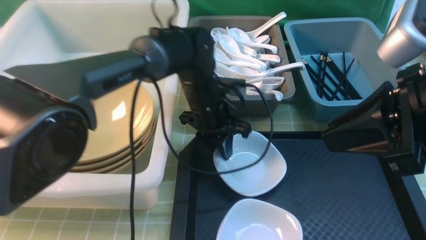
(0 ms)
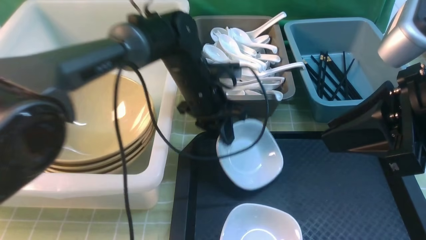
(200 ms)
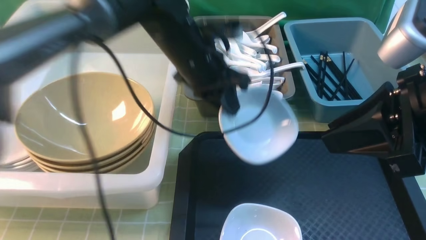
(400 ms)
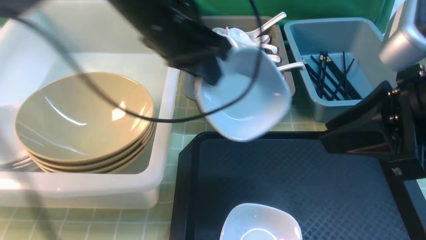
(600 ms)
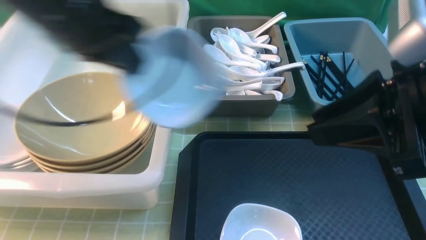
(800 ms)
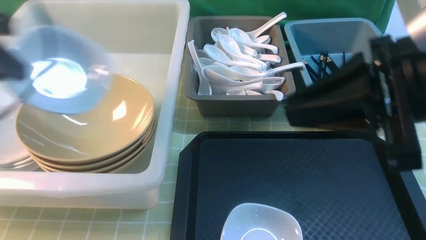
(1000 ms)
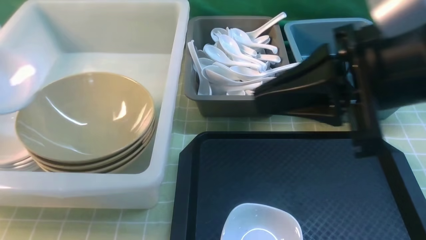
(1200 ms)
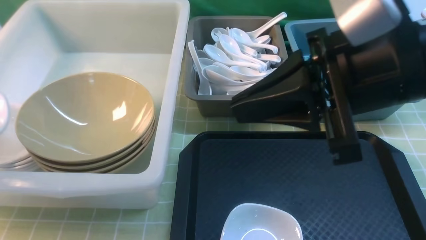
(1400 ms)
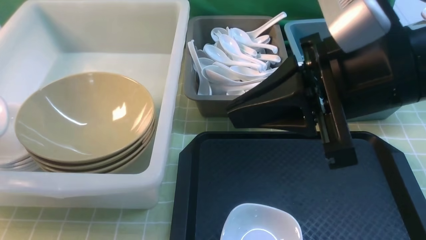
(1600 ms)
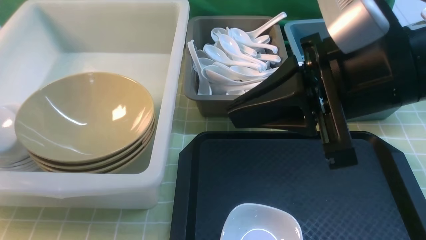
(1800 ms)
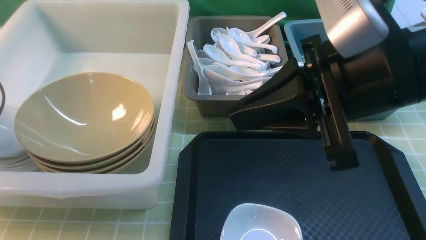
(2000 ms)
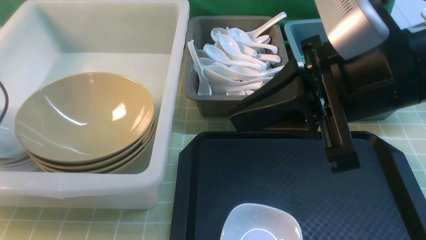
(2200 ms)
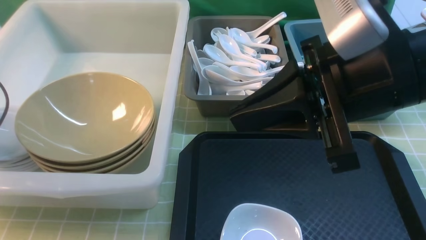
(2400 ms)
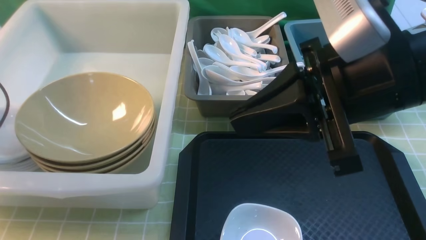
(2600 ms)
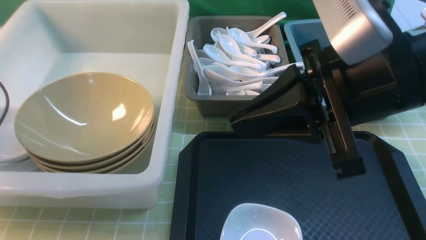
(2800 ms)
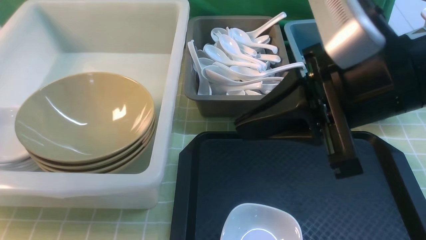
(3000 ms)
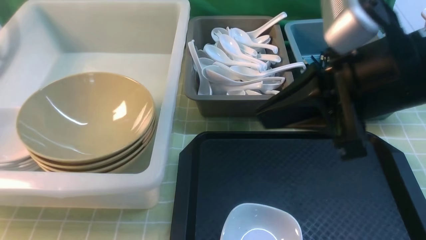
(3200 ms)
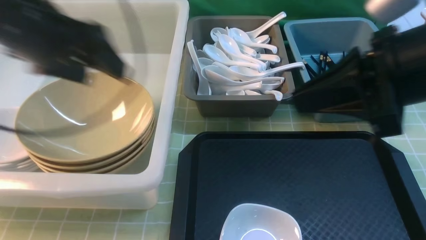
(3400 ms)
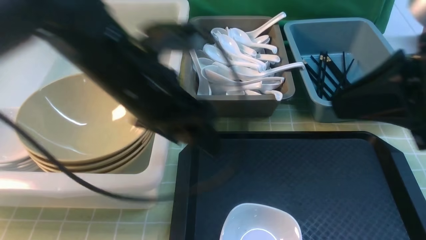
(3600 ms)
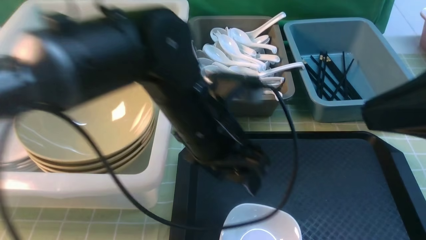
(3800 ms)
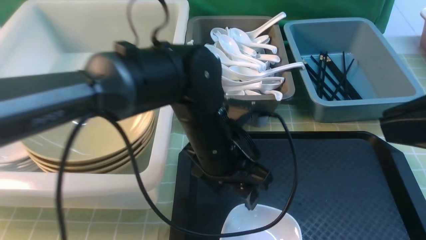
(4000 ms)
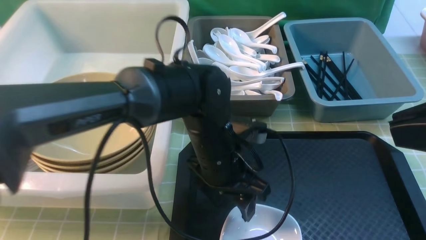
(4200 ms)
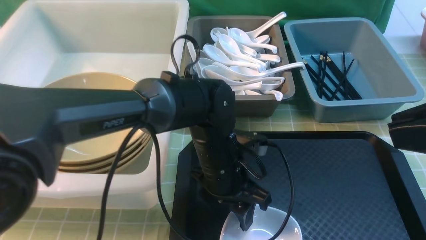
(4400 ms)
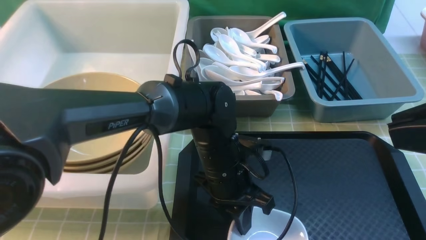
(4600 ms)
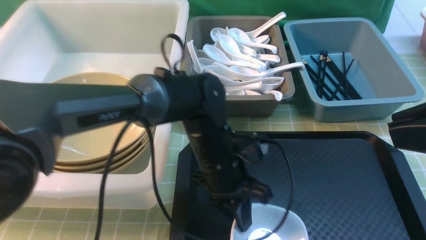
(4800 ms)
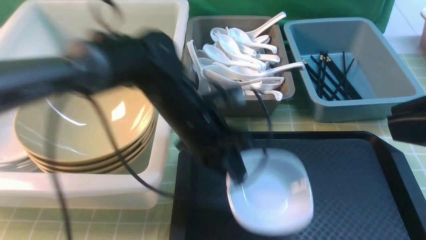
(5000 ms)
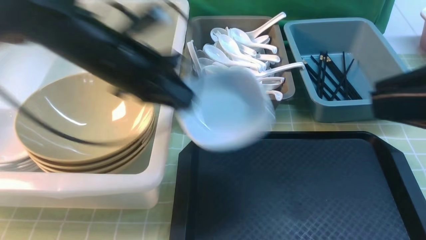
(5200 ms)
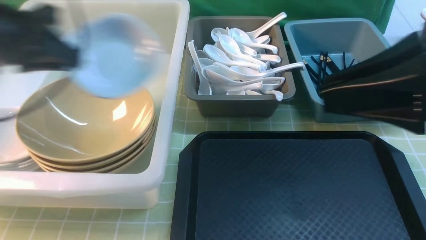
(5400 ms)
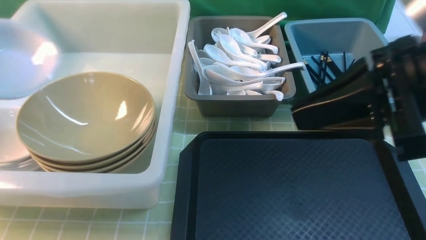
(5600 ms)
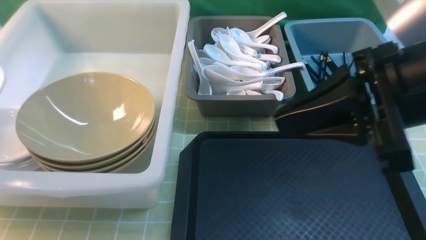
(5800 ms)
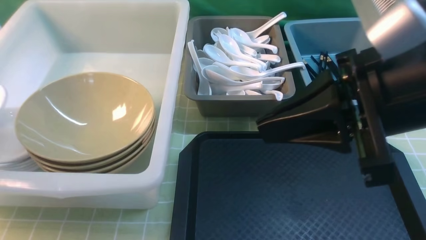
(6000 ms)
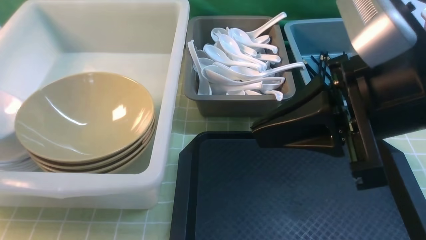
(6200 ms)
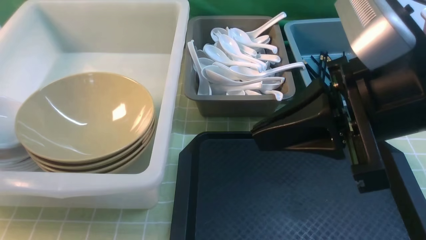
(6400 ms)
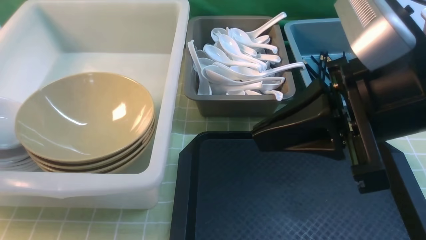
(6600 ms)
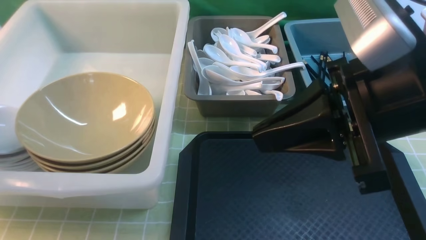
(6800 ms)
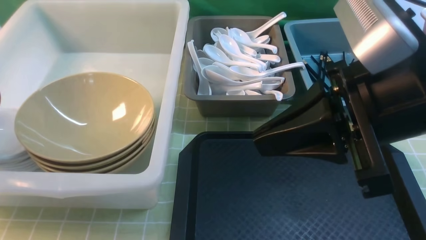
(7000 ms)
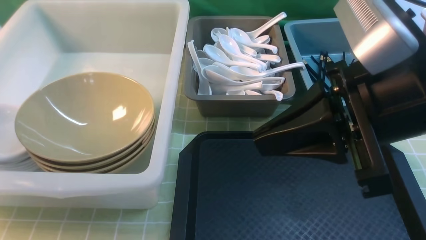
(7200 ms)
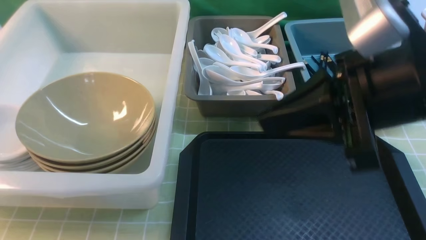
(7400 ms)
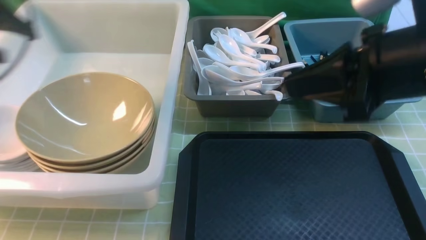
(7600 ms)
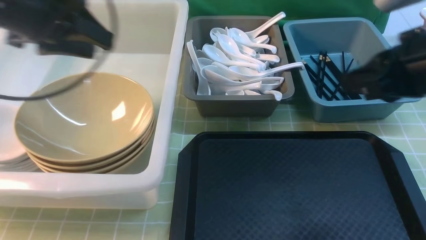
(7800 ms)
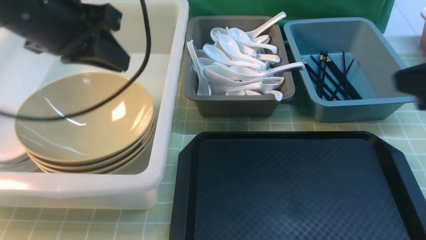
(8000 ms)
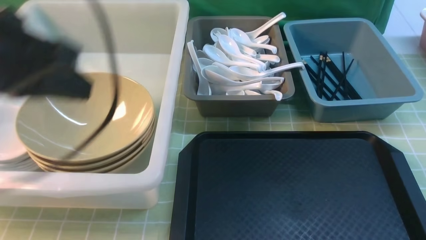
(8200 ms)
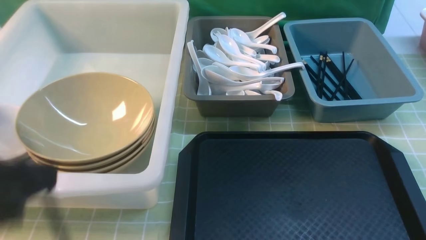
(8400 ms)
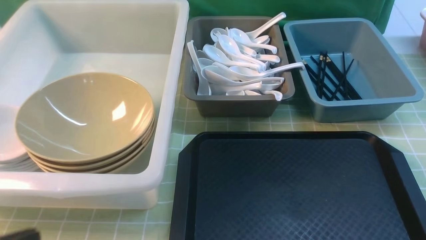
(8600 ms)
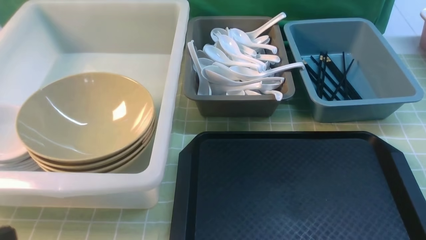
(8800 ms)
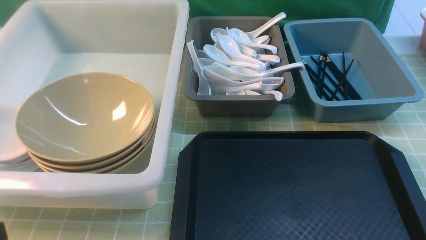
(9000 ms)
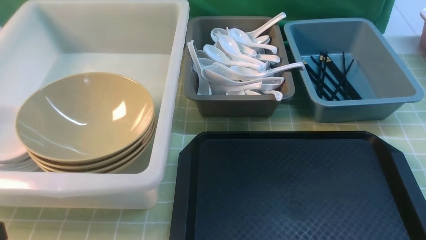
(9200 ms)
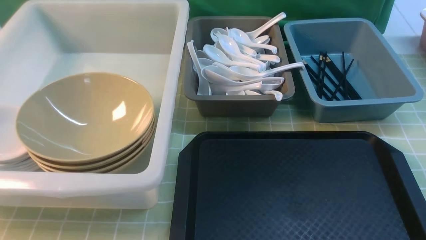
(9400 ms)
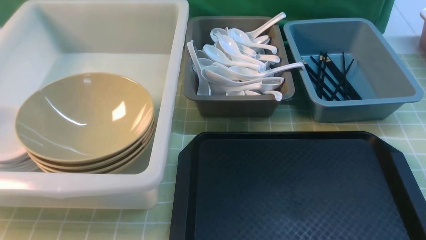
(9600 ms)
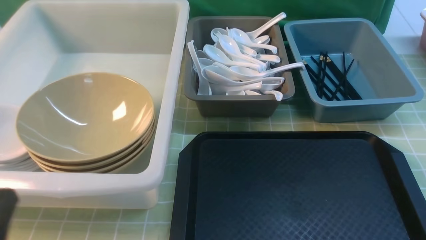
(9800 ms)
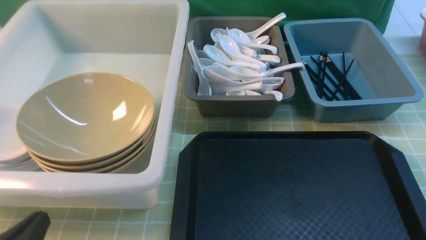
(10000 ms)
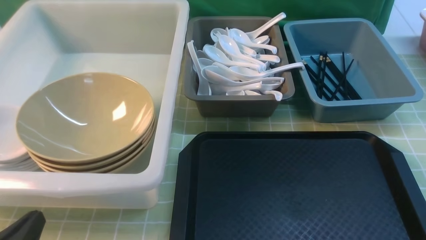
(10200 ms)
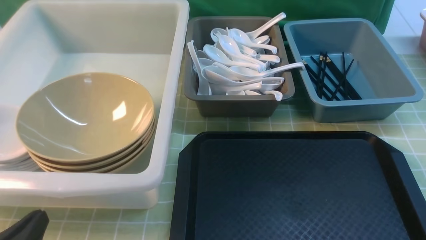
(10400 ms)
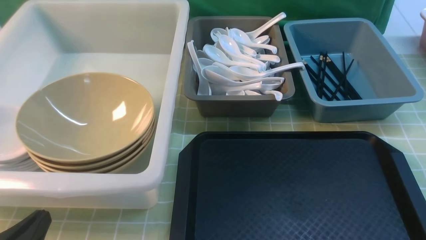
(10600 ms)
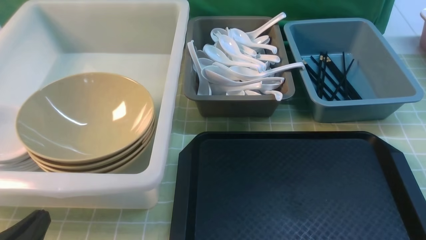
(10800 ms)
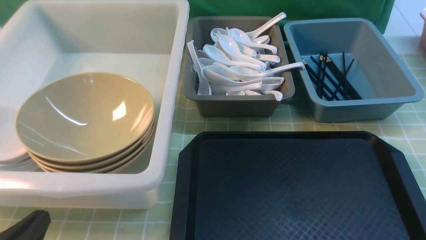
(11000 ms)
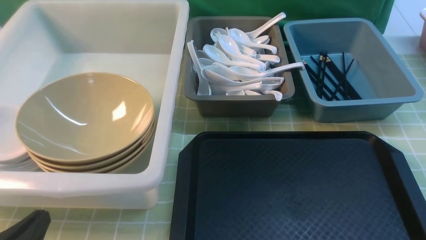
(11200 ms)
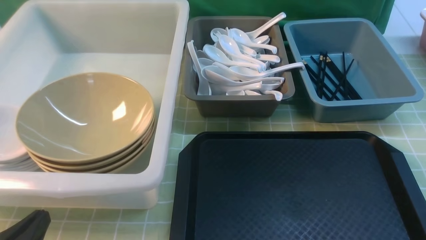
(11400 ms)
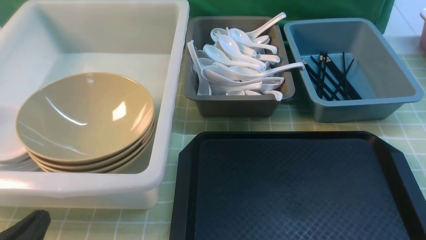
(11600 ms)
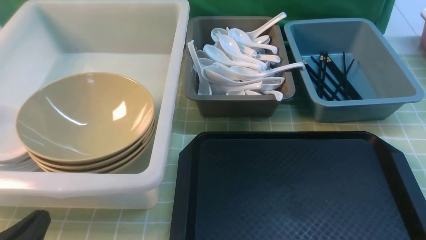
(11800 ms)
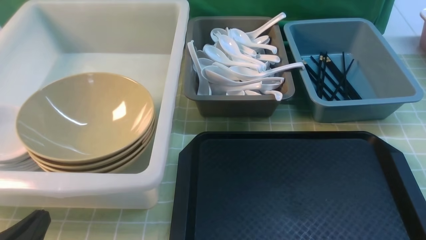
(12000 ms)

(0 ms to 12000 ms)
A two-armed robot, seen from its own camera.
Task of the whole recording: on green table put chopsticks spoon bowls plates into blue grey white boxes.
Step, 400 ms - 2800 ms: use the left arm to put the plate into the large storage box on the left.
Step, 3200 ms - 4800 ms: use the left arm to grab the plate.
Step, 5200 ms - 7200 ms: use the left arm to put the plate into the large storage box on the left.
0 ms - 1600 ms: The left gripper travels to the left by roughly 40 cm; the right gripper heads to the left, covering roughly 5 cm, and closes its fingers.
1600 ms - 3000 ms: The left gripper opens up.
3000 ms - 4400 ms: The left gripper moves to the right, approximately 40 cm, and closes up, while the right gripper heads to the right and backward, covering roughly 15 cm.
4400 ms - 6000 ms: The left gripper goes some 40 cm to the left, and closes its fingers, while the right gripper moves forward and to the left, about 10 cm.
6000 ms - 7600 ms: The left gripper goes roughly 10 cm to the right and forward, moves about 5 cm downward and comes back, and opens up.
7600 ms - 9000 ms: The left gripper shifts about 30 cm backward and to the right, and closes. Meanwhile the right gripper shifts about 20 cm backward, downward and to the right.
9000 ms - 10400 ms: The left gripper shifts some 15 cm downward.

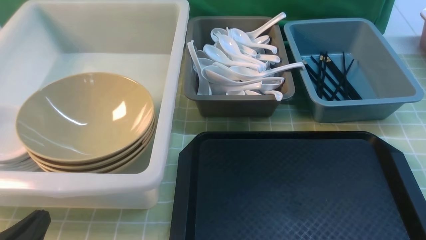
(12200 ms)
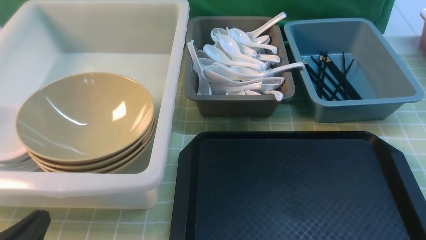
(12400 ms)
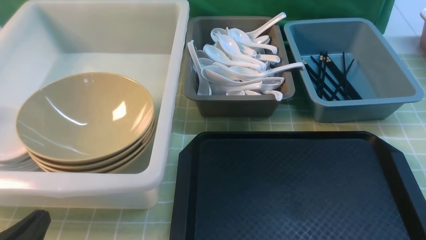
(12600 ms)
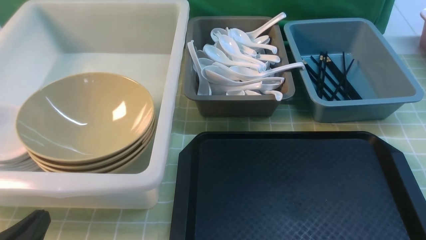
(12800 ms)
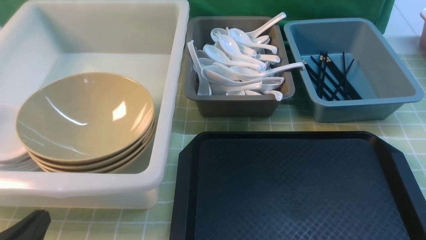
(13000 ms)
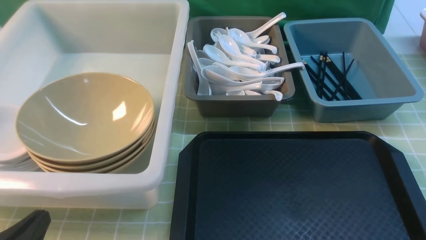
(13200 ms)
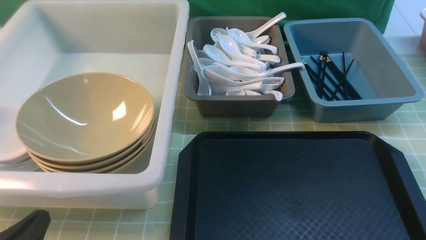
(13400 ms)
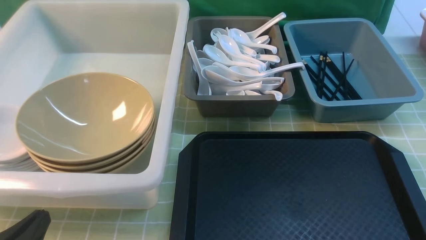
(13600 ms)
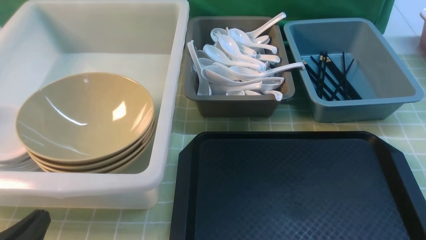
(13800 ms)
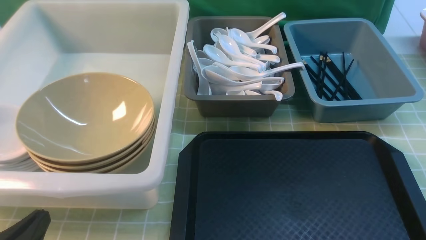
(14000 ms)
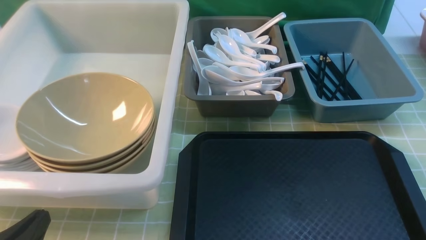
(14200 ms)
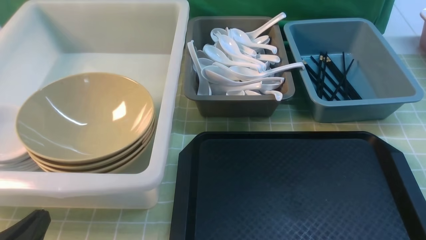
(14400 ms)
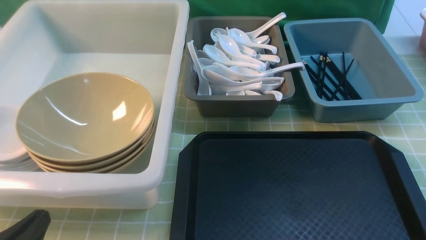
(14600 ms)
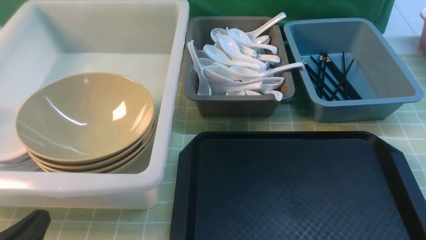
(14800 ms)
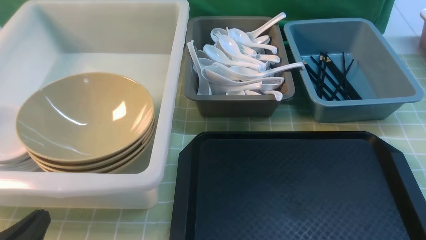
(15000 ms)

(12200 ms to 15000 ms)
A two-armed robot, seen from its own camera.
Task of the whole recording: on green table put chopsticks spoon bowls plates into blue grey white boxes.
12200 ms - 15000 ms: The two grippers keep their place.

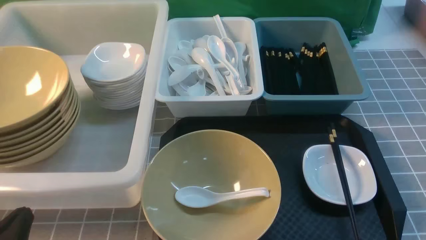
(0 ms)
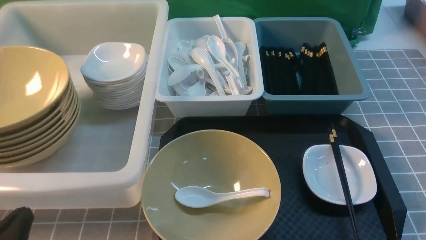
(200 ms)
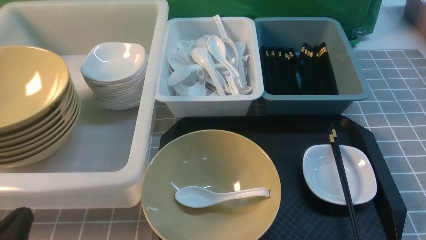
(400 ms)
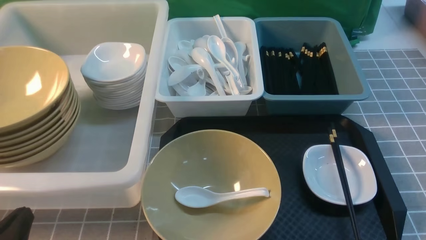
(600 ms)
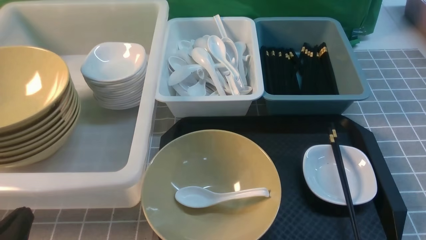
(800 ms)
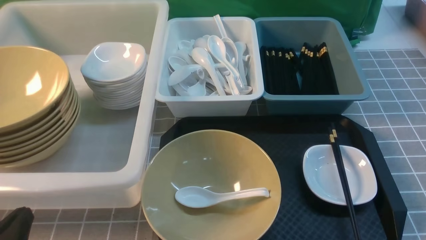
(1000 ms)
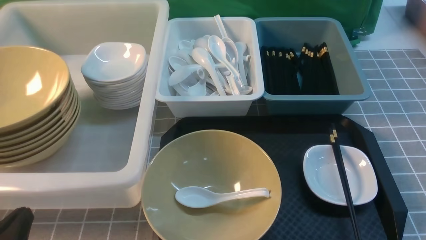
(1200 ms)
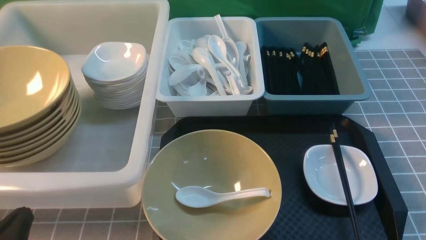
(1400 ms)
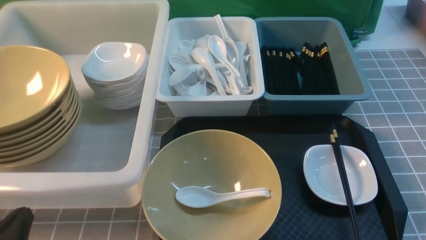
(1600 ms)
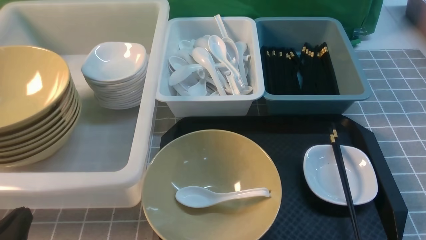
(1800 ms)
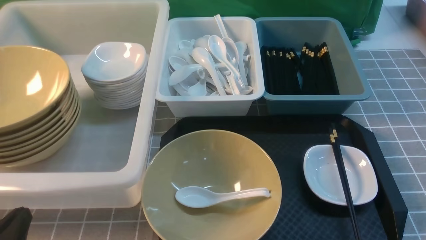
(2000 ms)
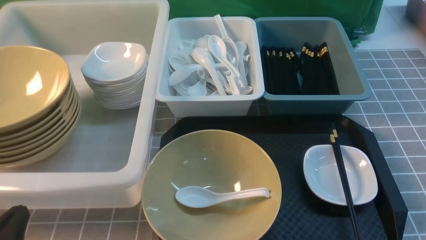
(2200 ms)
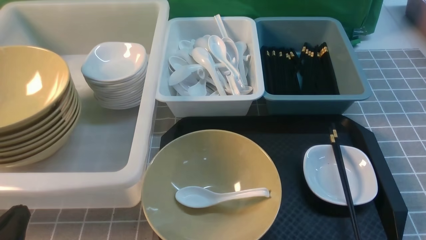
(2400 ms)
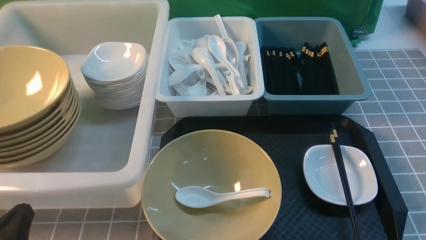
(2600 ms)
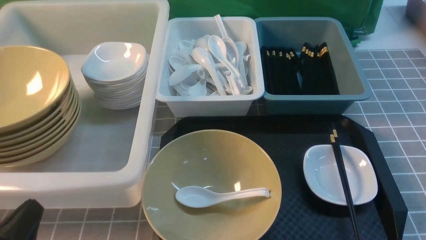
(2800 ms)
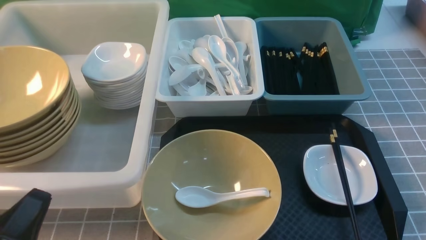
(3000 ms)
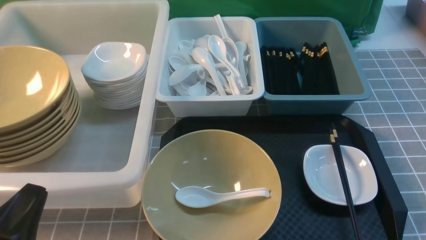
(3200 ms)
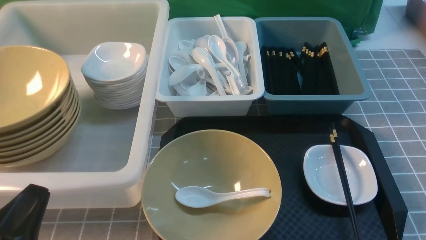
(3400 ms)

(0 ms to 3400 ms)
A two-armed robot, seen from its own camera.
Task of the whole recording: on grey table put chopsticks spoon bowls plates into blue grey white boxes.
0 ms - 1600 ms: The two grippers keep their place.
